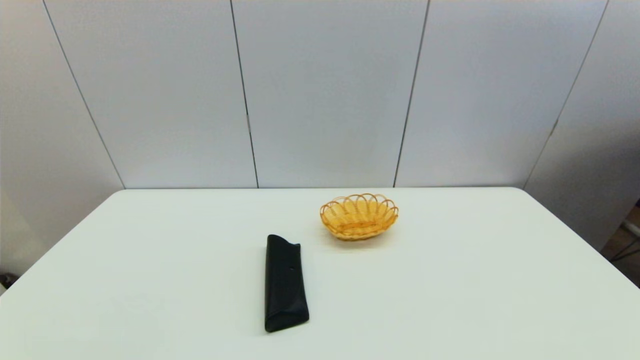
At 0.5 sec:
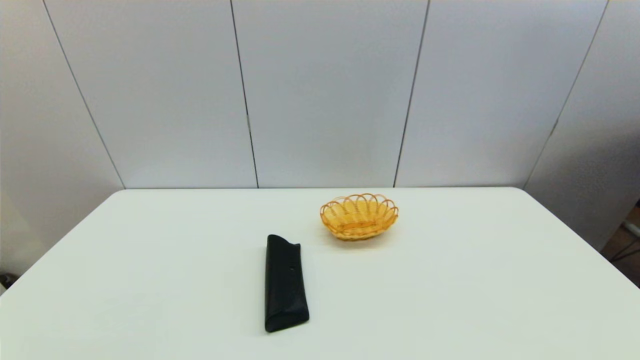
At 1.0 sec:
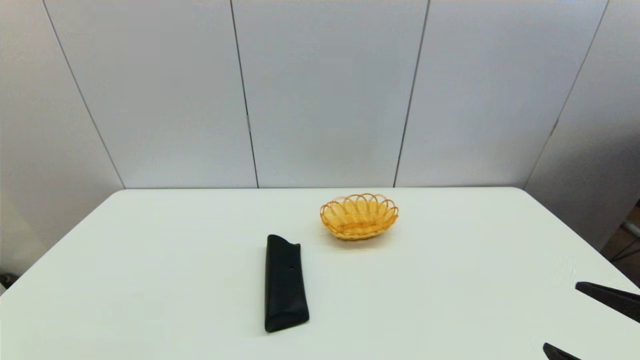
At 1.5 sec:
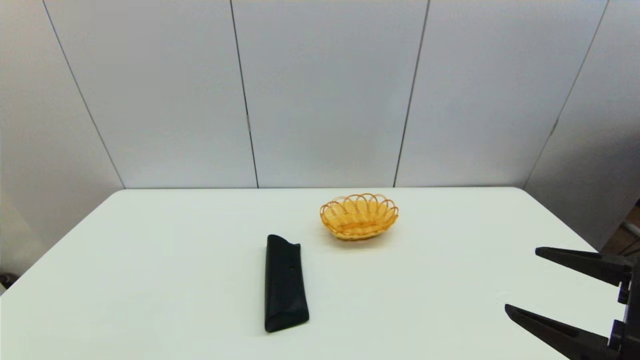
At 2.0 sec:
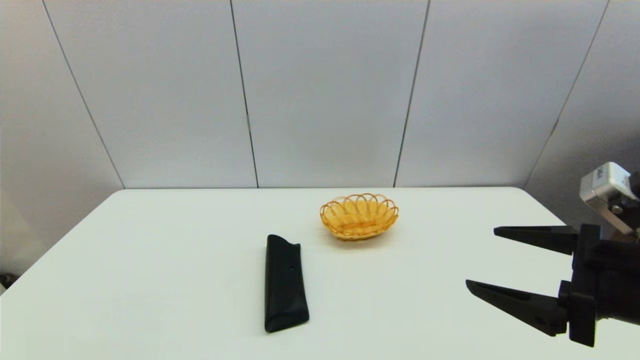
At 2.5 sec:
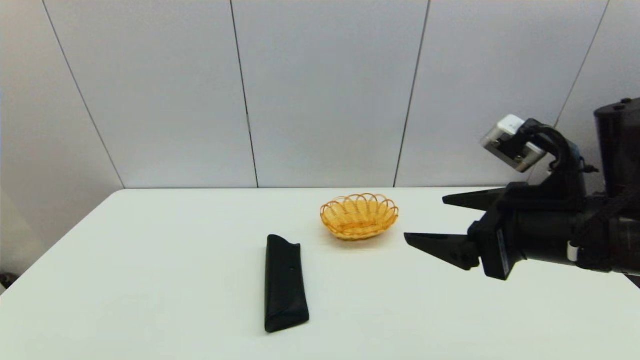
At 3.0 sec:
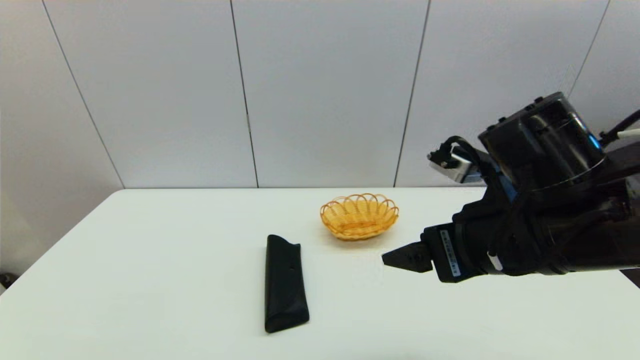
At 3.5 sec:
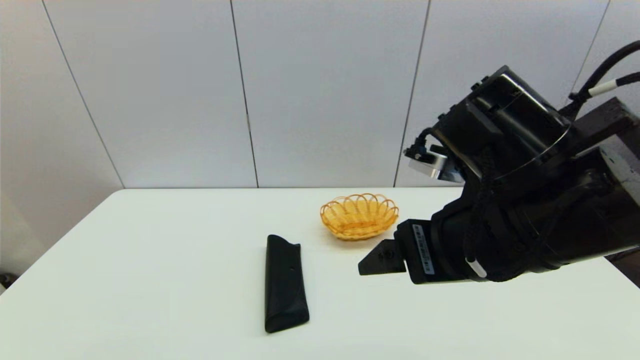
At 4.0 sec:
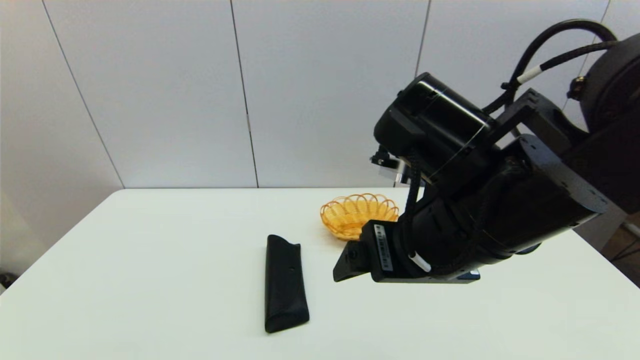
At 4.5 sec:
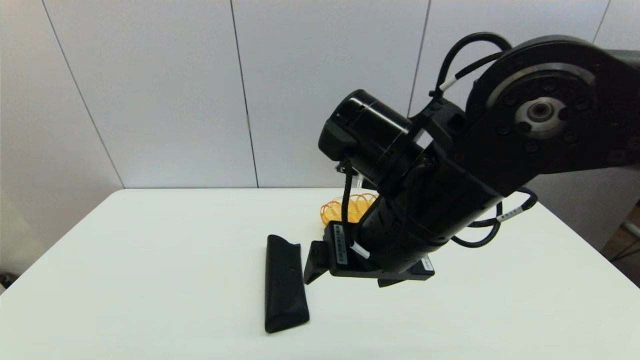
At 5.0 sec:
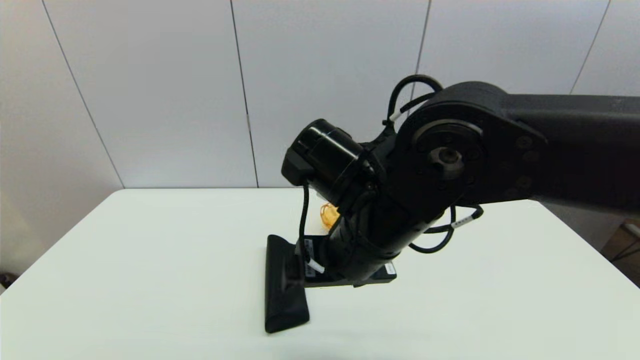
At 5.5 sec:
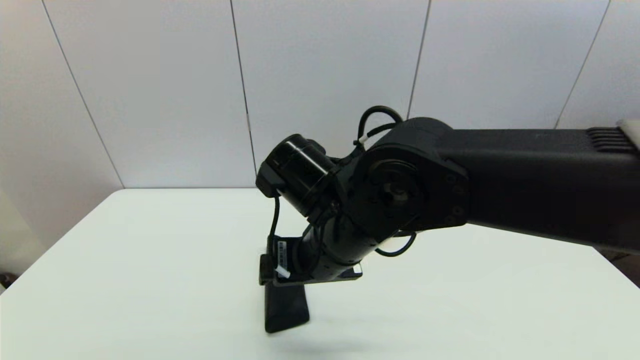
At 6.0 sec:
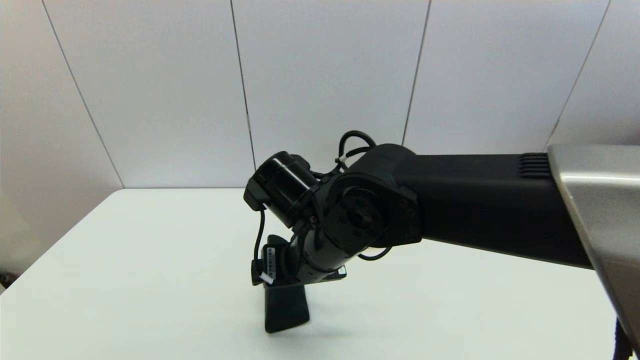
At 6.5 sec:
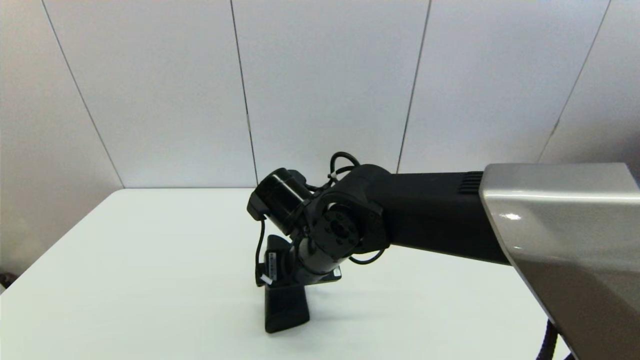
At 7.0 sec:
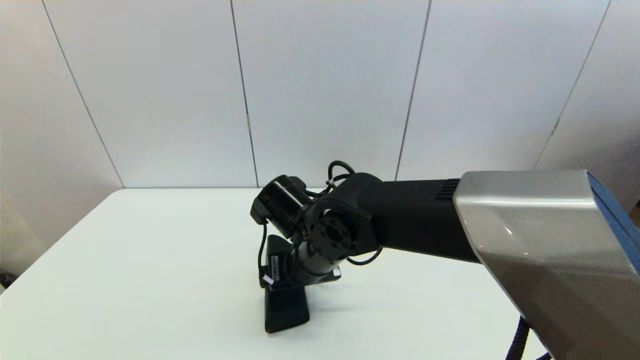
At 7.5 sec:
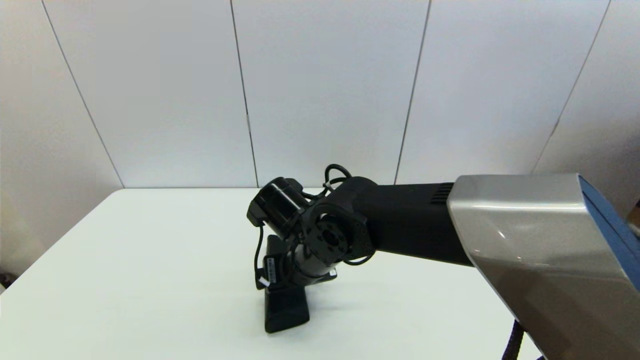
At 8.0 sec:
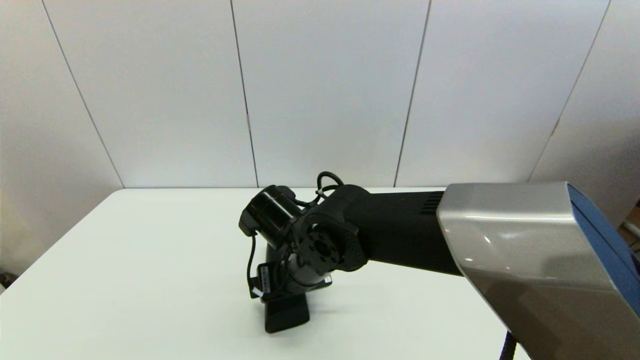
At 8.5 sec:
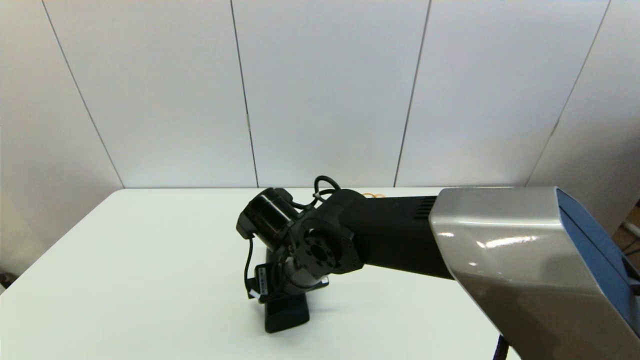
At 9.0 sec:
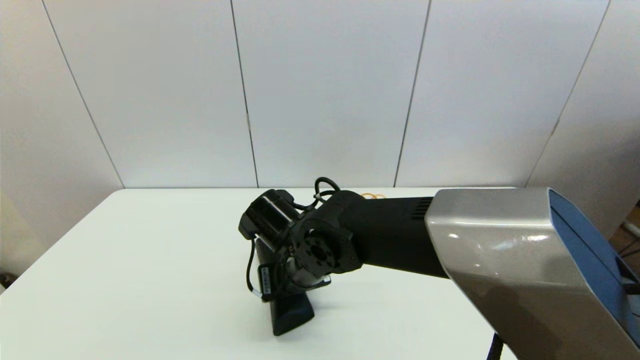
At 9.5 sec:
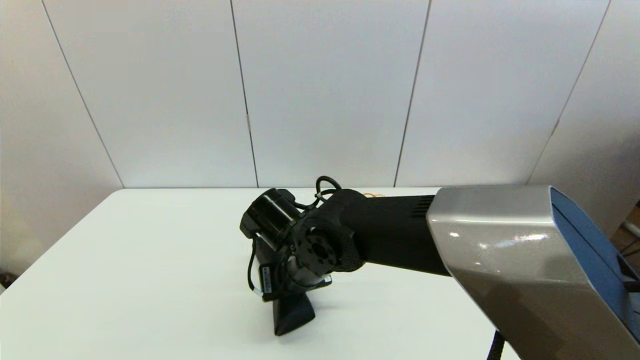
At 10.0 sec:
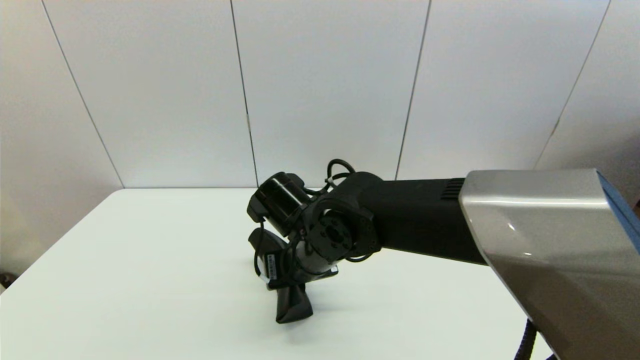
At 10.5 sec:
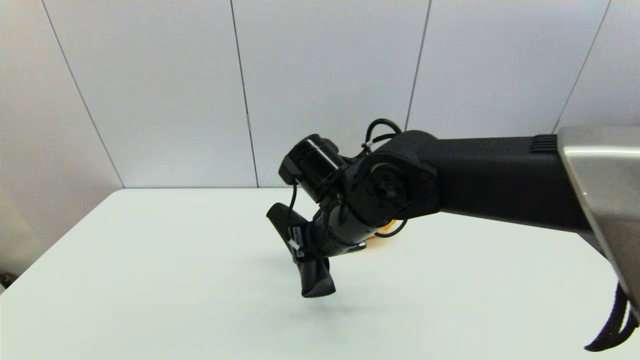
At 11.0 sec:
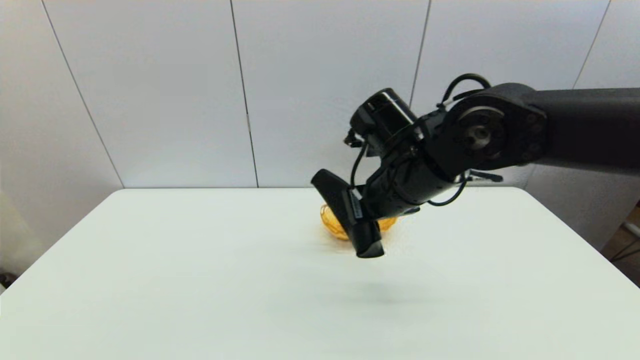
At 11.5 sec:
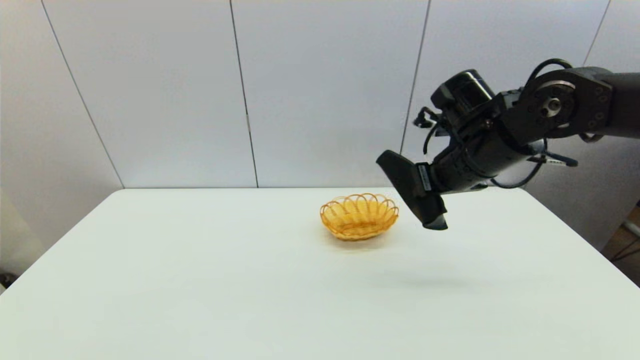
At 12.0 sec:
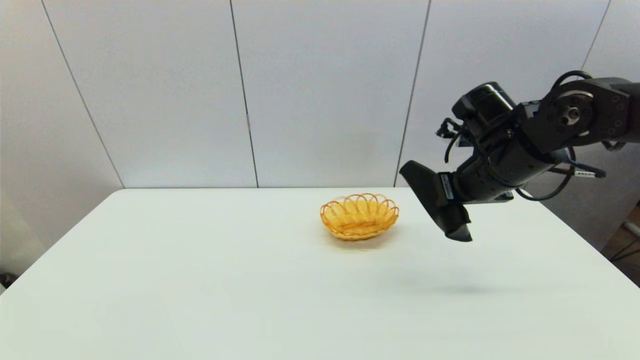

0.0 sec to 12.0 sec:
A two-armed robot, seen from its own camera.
Step, 1.0 sec to 9.5 sec: Grasp the glasses case with right gripper.
0.0 sec to 2.0 sec: The right gripper goes roughly 20 cm forward, upward and to the left.
2.0 sec to 4.0 sec: The right gripper travels to the left by about 15 cm.
4.0 sec to 6.0 sec: The right gripper goes approximately 15 cm to the left, downward and forward.
6.0 sec to 8.0 sec: The right gripper shifts some 5 cm downward.
8.0 sec to 10.0 sec: The right gripper closes.
10.0 sec to 12.0 sec: The right gripper is displaced to the right by roughly 25 cm.

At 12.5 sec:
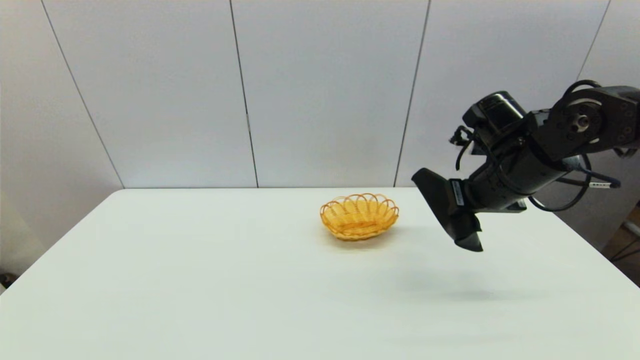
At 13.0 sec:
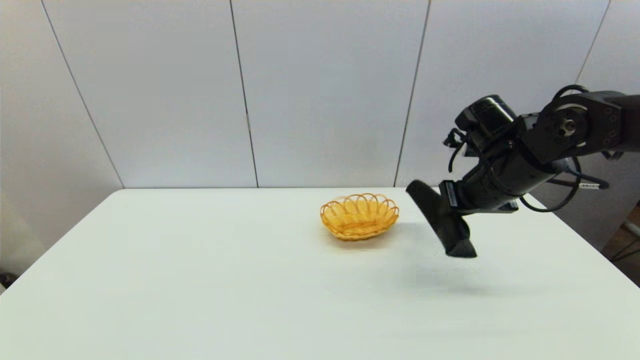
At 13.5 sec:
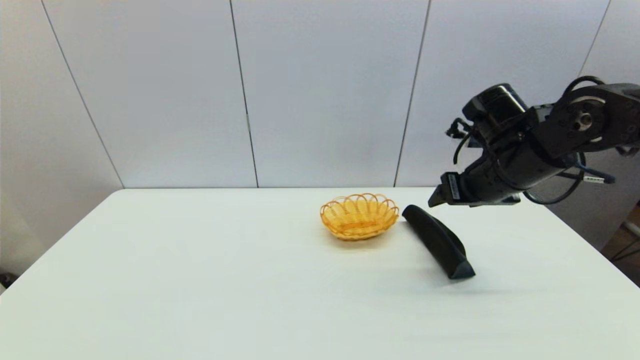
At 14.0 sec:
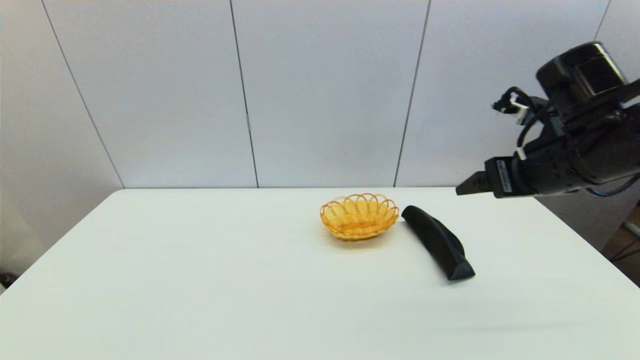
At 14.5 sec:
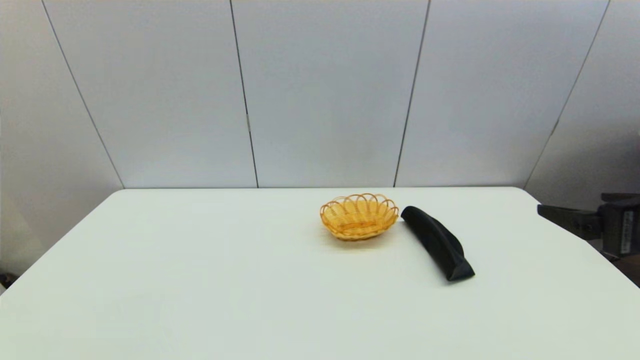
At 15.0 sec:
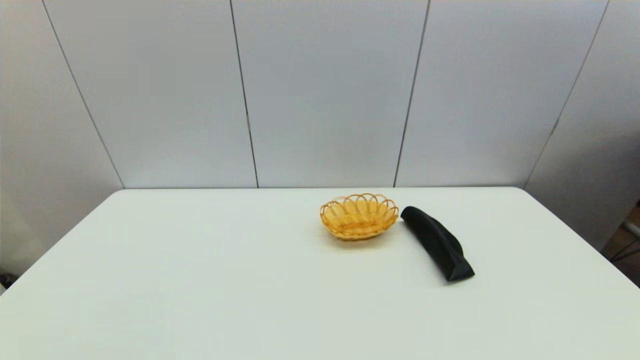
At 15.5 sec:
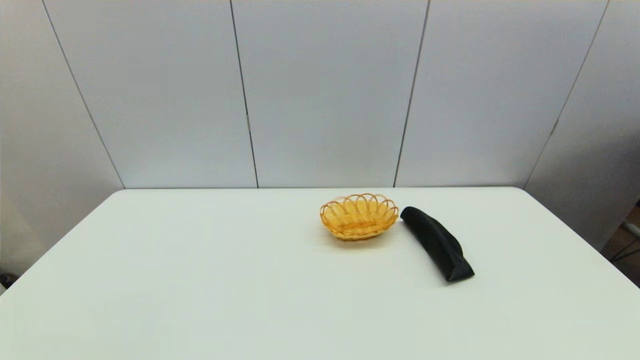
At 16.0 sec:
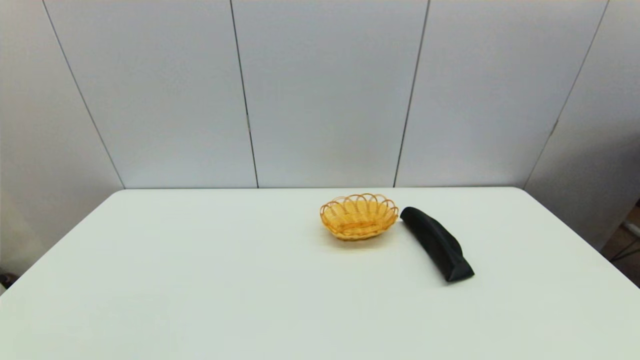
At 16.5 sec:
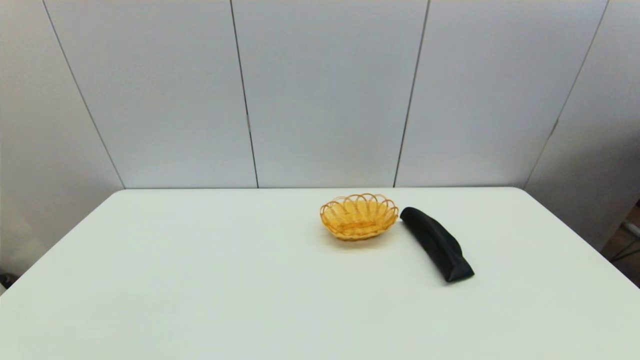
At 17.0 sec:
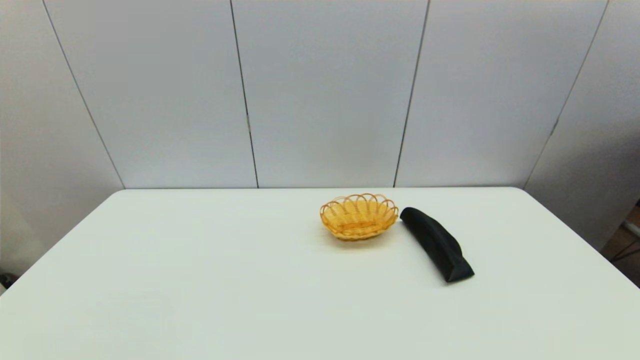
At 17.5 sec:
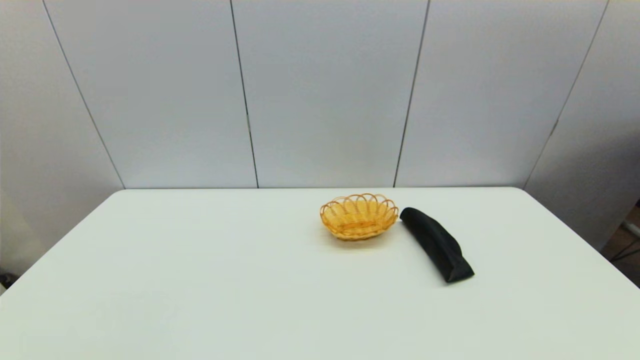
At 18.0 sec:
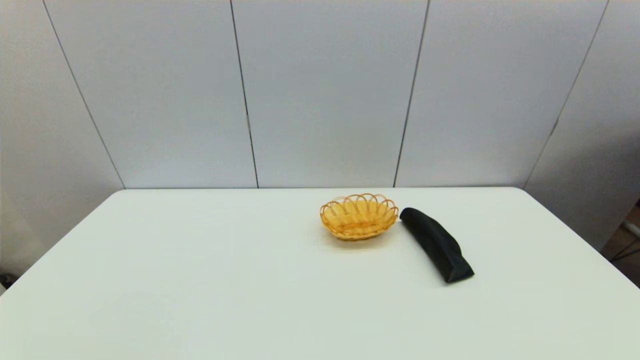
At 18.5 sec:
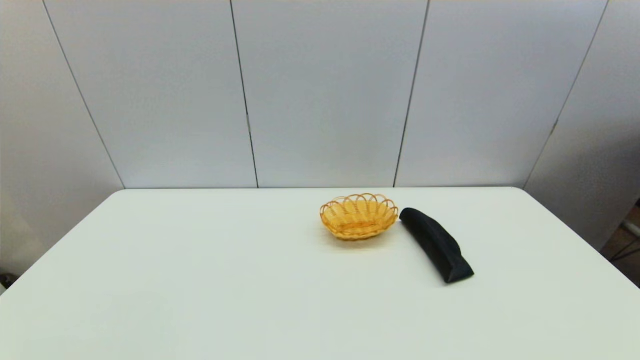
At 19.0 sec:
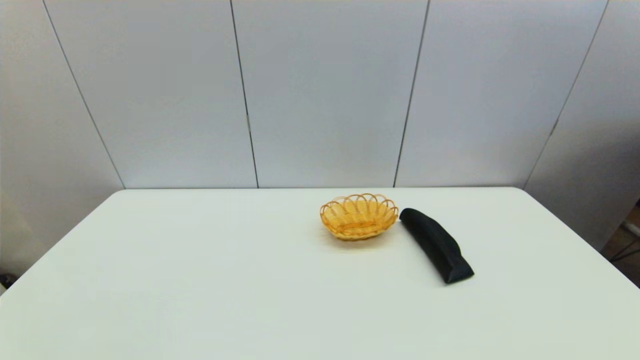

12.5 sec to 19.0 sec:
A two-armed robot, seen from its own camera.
12.5 sec to 14.5 sec: The right gripper moves backward and to the right, about 20 cm, and opens its fingers.
14.5 sec to 17.0 sec: The right gripper travels backward and downward by some 25 cm.
